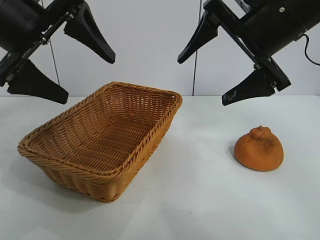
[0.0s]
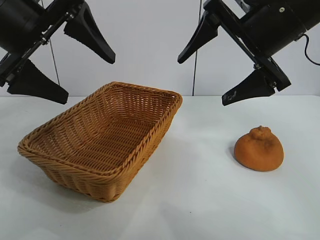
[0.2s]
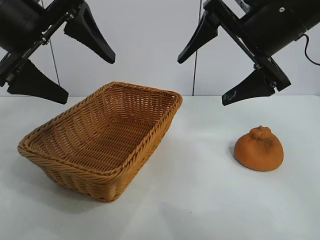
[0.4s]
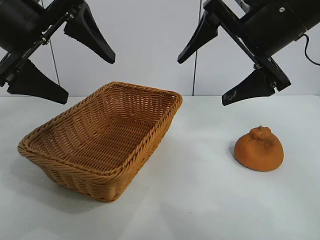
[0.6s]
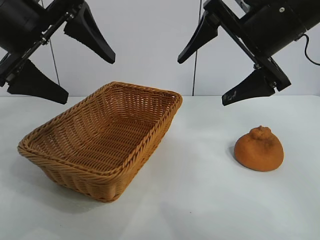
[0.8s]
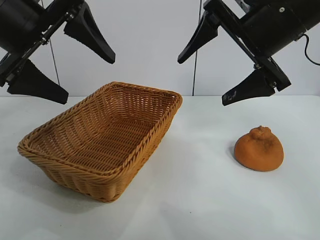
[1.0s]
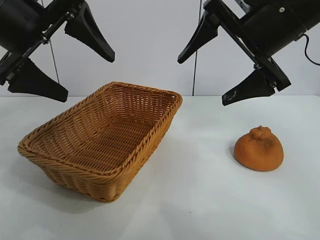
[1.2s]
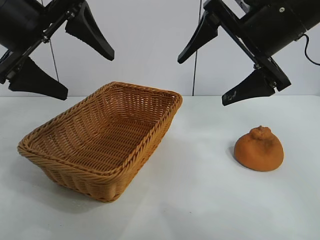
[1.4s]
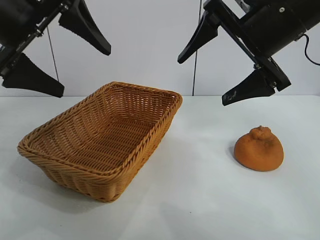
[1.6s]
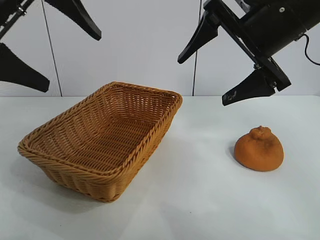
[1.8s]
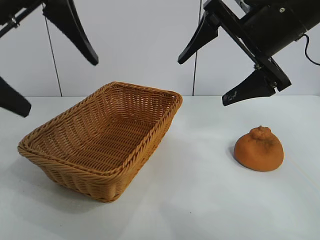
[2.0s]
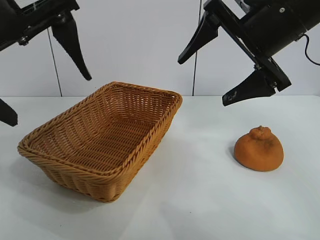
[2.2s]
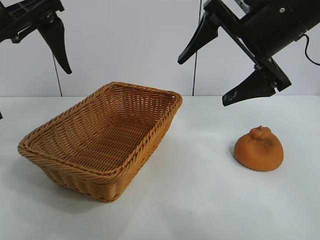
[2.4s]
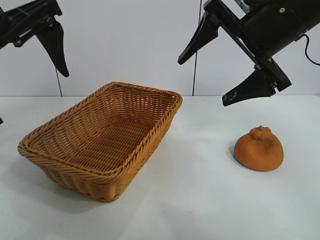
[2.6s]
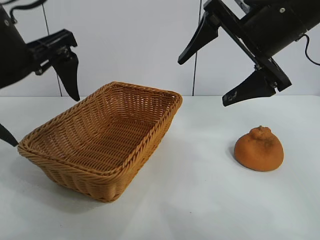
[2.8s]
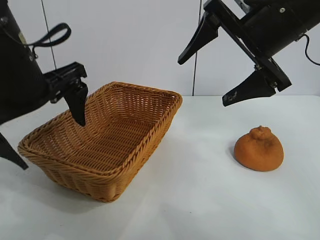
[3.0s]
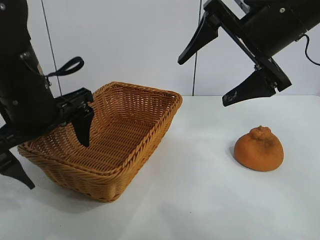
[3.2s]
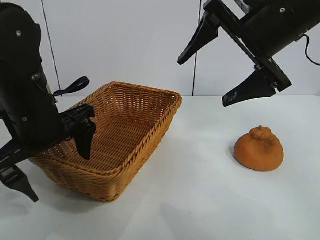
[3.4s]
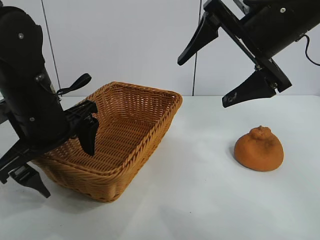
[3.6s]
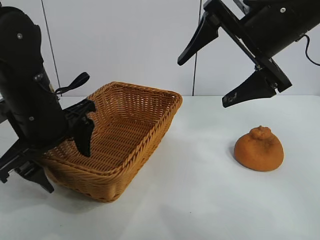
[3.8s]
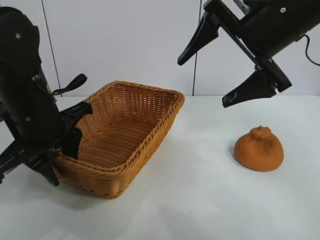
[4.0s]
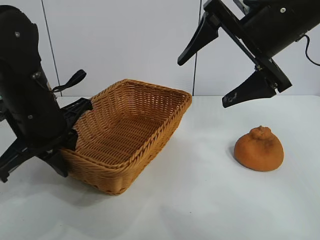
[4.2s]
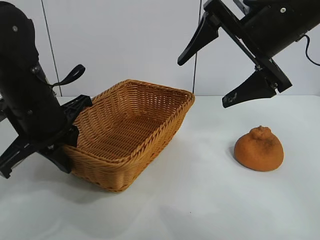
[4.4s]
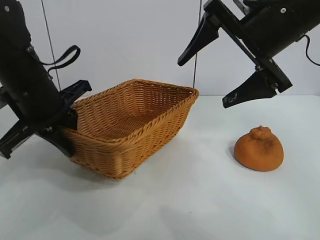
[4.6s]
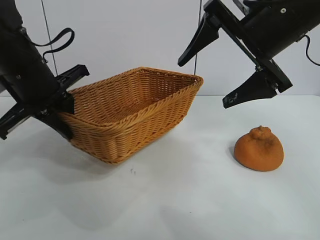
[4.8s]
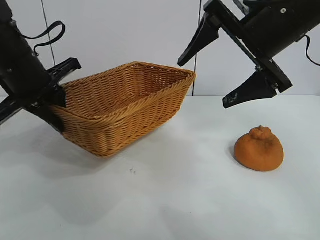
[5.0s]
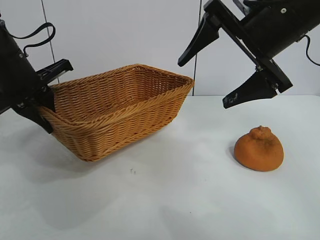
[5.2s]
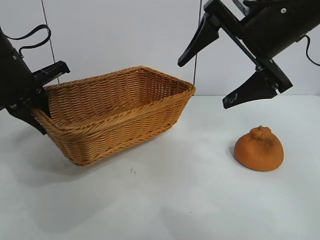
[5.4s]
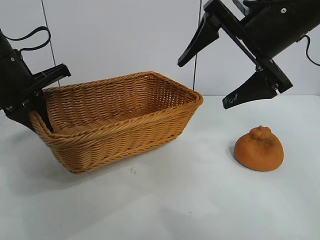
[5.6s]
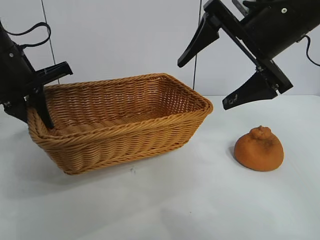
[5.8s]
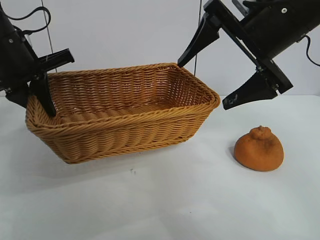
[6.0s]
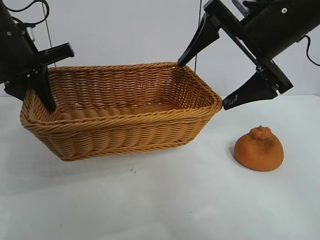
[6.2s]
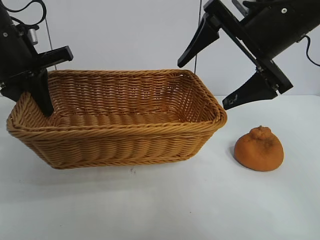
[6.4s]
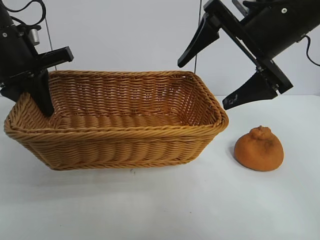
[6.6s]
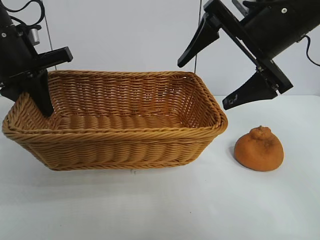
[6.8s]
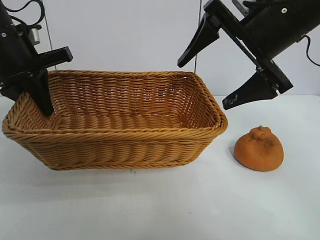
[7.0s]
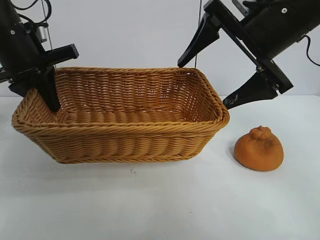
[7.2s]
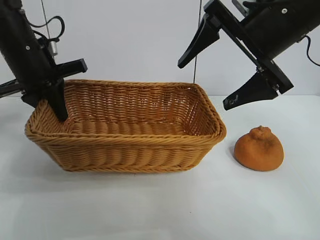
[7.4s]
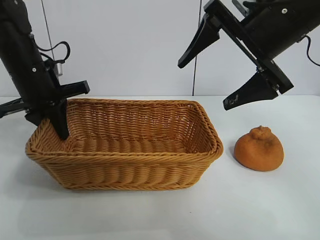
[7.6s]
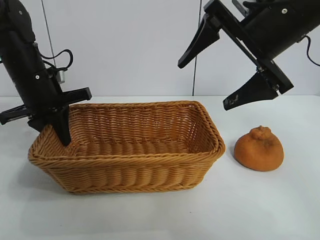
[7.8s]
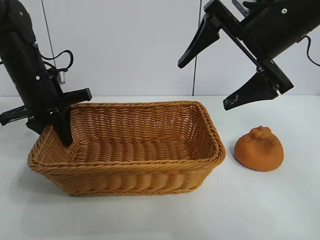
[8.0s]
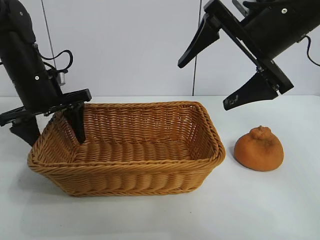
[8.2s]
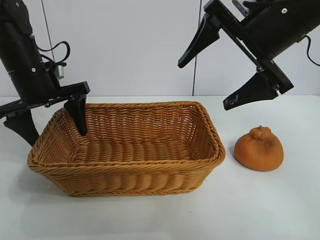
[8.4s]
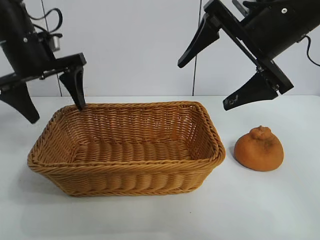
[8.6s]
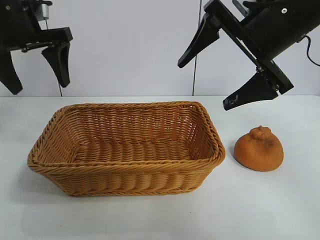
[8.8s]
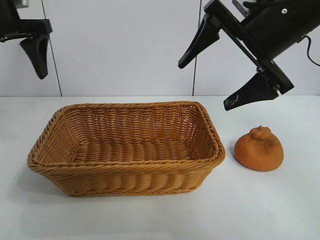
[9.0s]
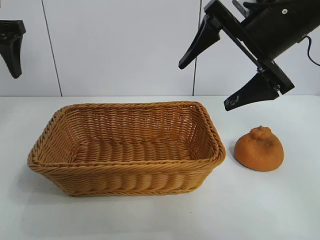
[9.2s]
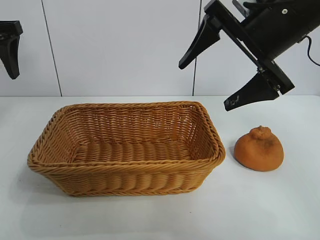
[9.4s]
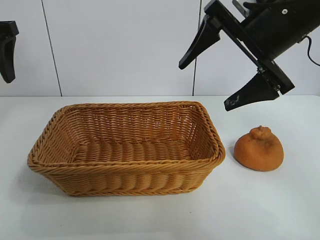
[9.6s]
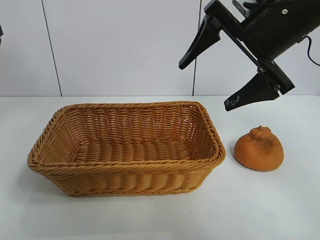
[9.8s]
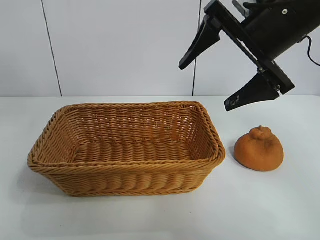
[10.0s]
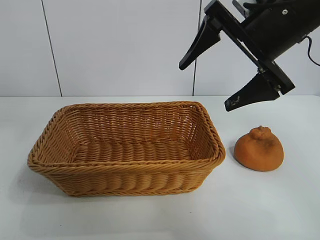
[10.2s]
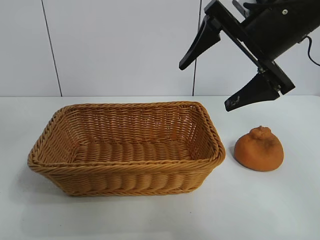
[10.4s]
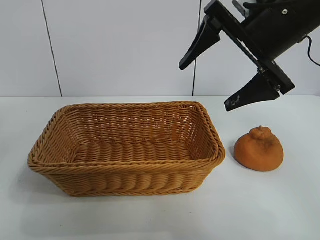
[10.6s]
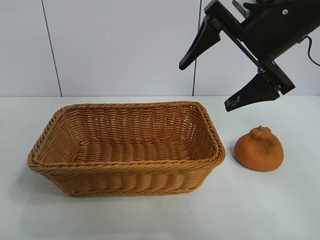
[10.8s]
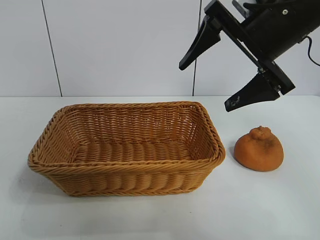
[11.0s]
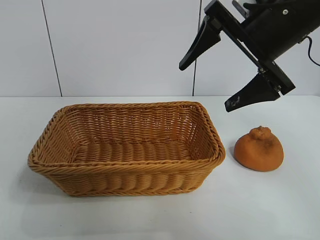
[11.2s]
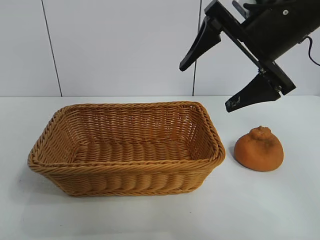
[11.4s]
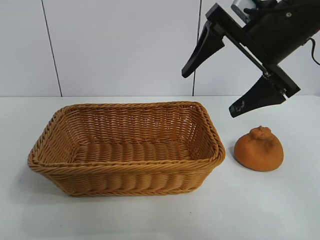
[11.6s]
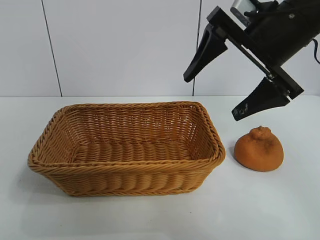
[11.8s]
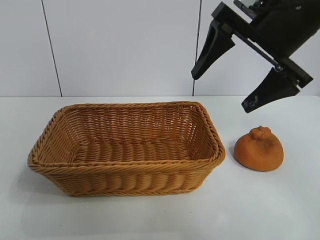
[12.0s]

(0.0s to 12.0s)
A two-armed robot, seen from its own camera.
Task of the whole recording: pick up the orange and put it into the basket.
Step, 1.2s - 4.0s: Grasp the basket with left gripper.
Step, 4.4s - 8.2s: Place the basket in the center of view with left gripper.

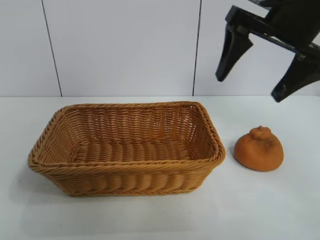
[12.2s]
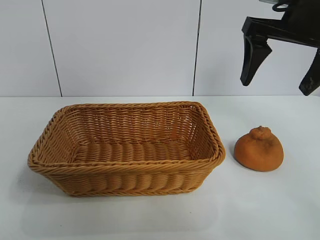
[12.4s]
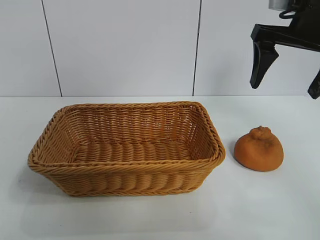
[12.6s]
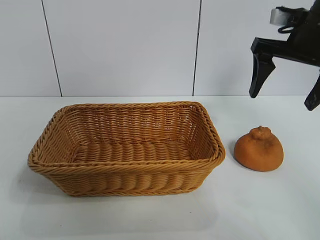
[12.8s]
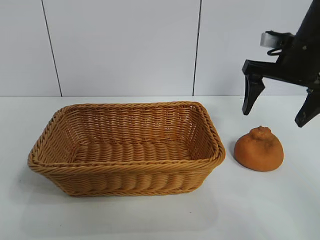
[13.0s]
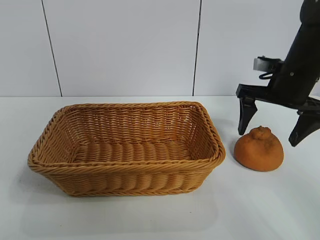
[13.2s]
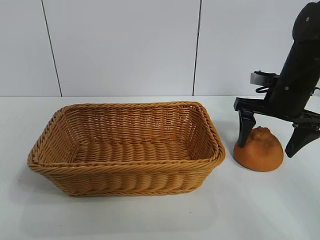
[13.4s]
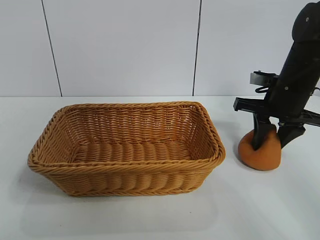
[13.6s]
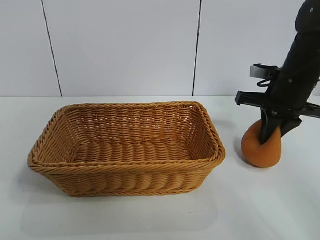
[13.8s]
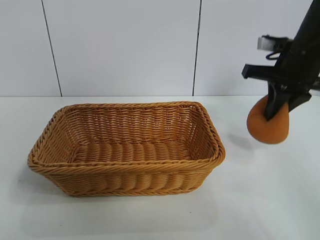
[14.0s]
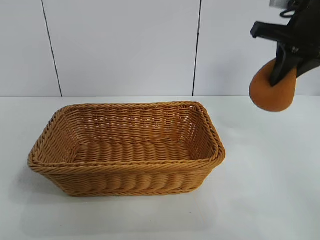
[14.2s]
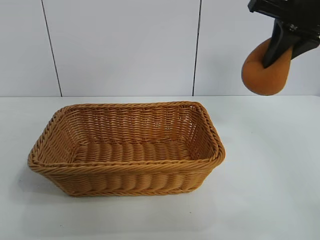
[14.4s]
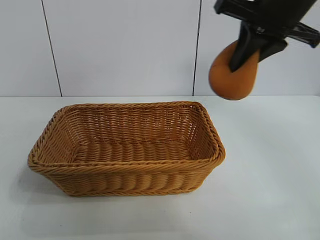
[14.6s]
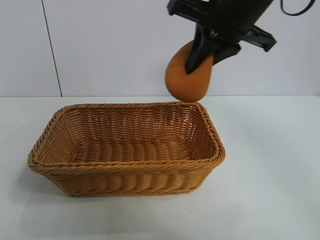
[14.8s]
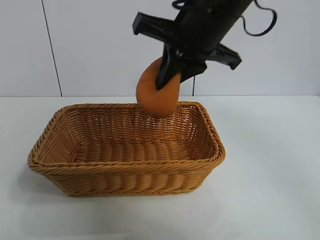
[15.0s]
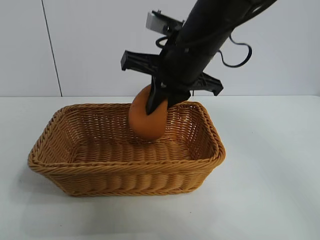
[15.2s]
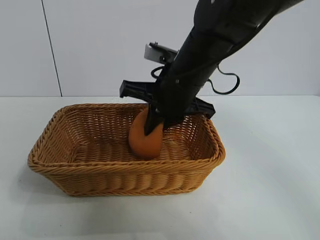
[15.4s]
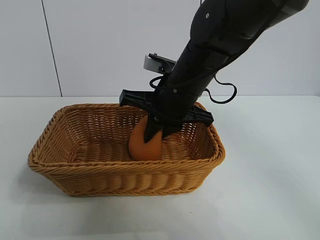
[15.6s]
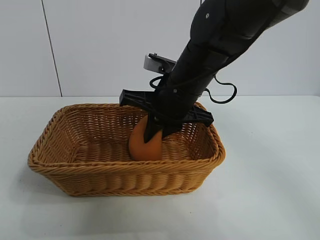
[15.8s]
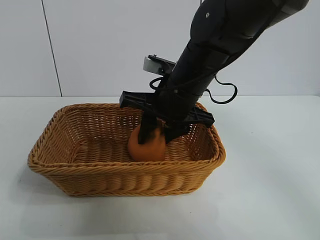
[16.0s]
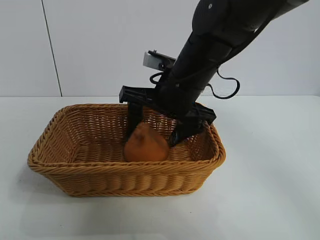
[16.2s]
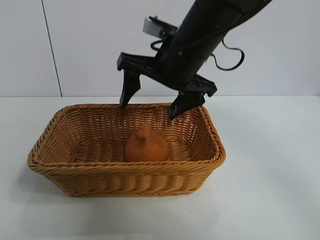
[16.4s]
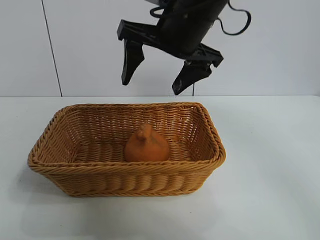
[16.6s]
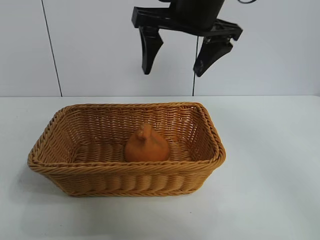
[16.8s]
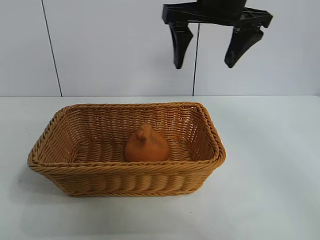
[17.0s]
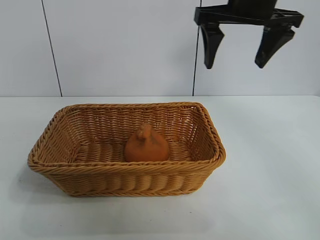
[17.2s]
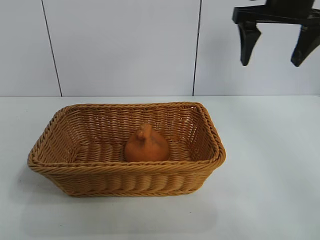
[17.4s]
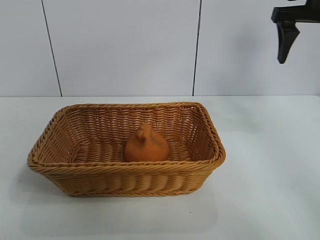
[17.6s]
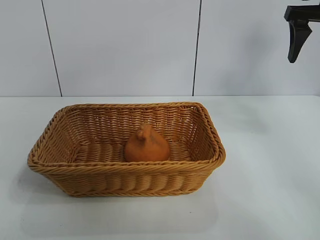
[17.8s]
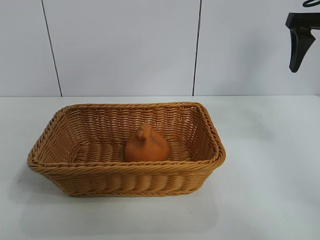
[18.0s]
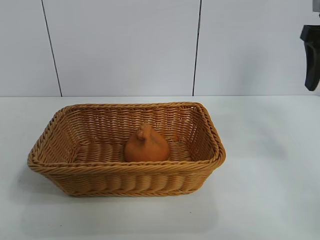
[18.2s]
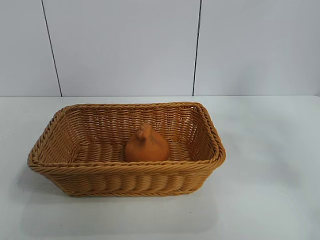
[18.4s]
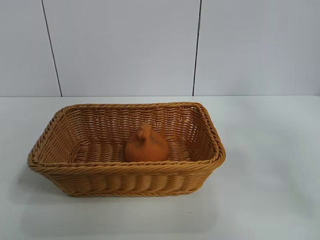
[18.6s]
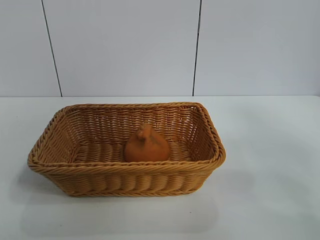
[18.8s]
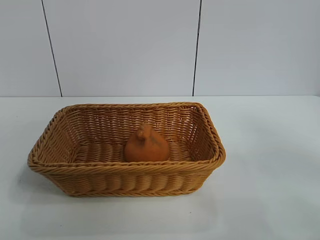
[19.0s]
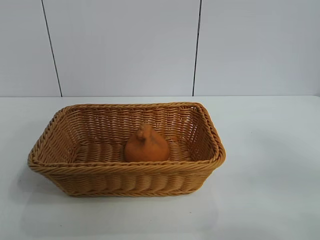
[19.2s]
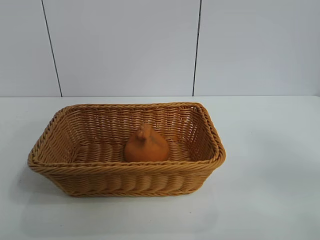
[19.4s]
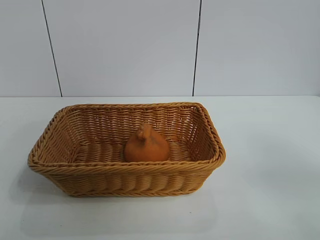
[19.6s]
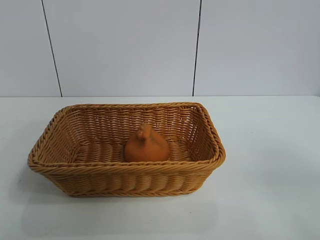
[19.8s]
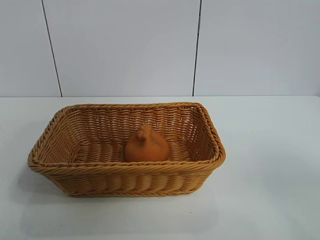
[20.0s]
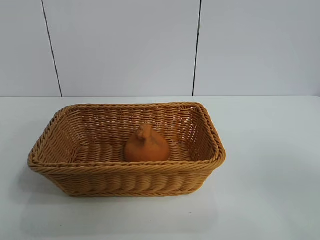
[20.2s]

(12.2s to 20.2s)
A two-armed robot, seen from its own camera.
Task of the whole recording: pick up the orange and put it into the basket.
Step, 14.0s - 16.2s: Place the orange in the basket with right gripper.

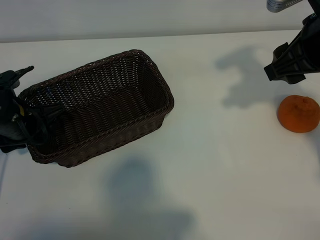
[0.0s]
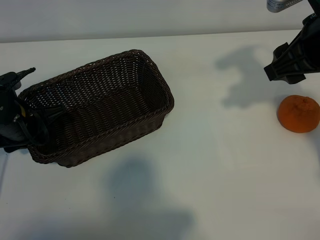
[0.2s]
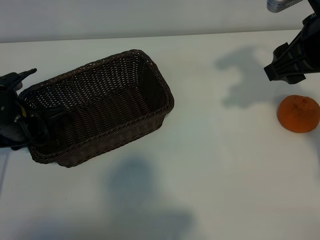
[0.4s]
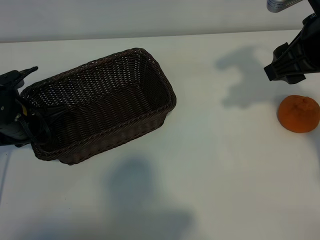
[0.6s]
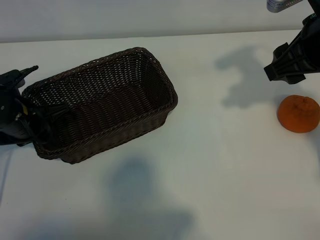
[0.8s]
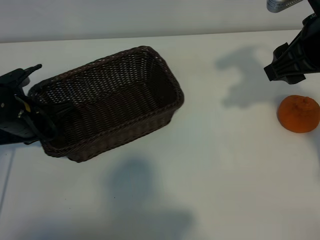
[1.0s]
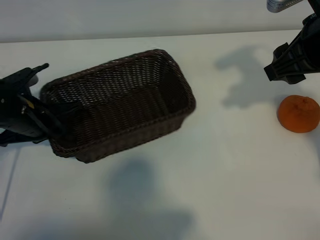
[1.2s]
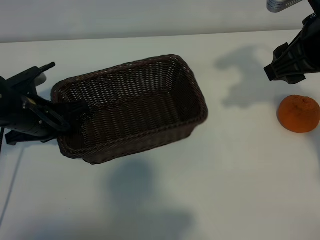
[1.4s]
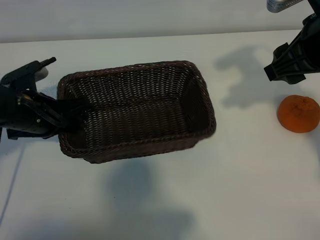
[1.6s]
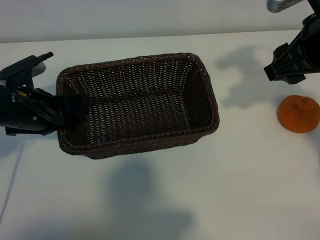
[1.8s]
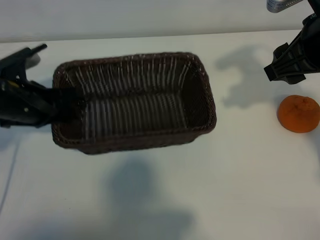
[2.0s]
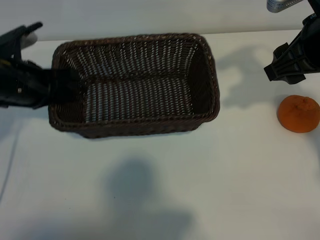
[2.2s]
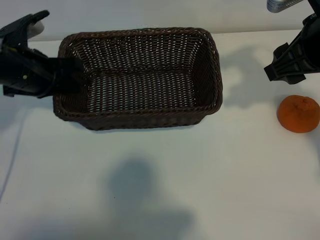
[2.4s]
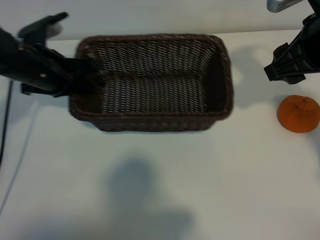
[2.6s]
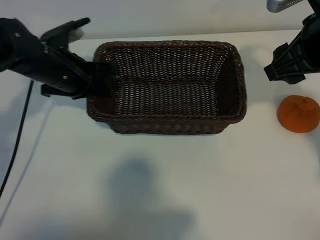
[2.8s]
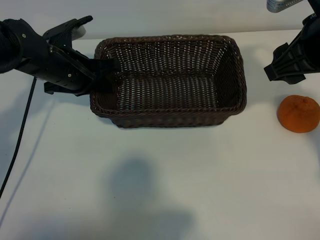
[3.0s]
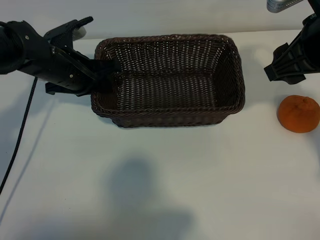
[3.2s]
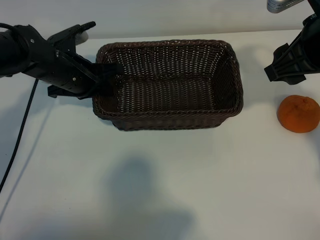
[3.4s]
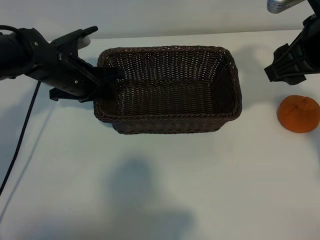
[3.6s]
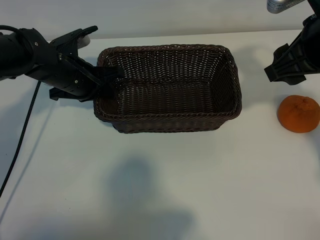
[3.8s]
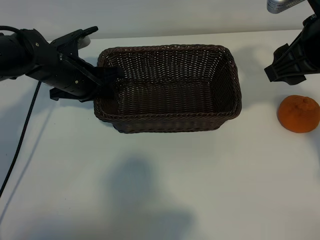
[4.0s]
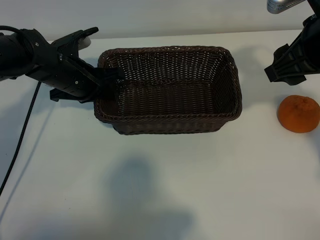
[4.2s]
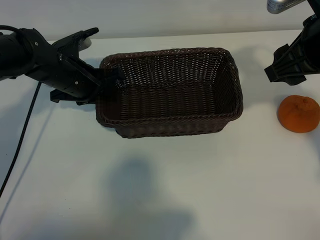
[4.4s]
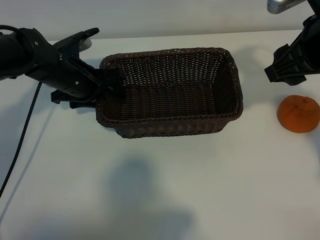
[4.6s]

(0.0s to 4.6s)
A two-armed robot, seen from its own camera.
Task of the whole recording: pick up the orange and put it into the basket.
Step, 0.6s - 4.2s: Place the basket in the center of view with left gripper.
